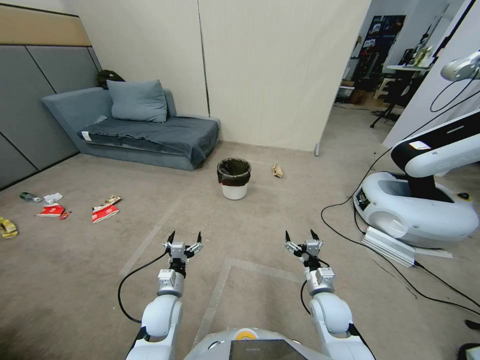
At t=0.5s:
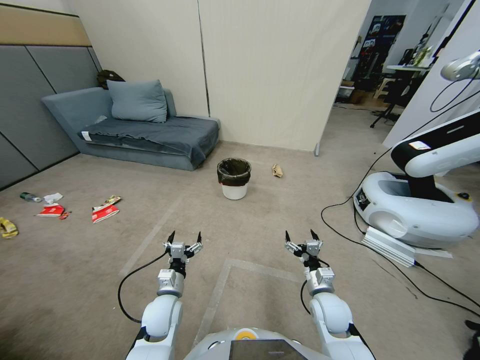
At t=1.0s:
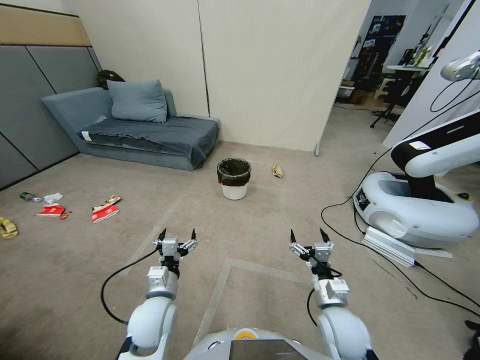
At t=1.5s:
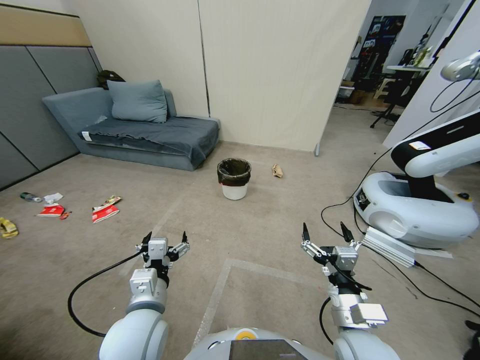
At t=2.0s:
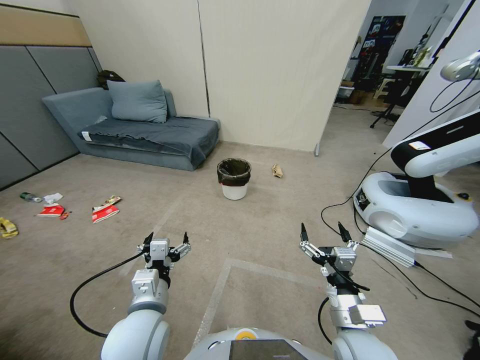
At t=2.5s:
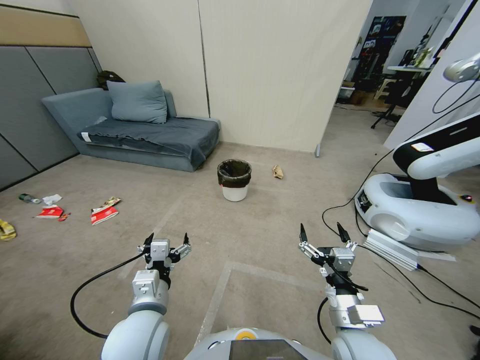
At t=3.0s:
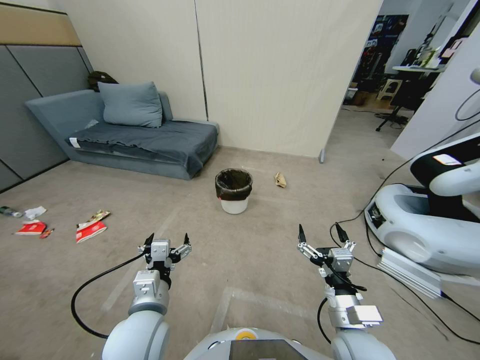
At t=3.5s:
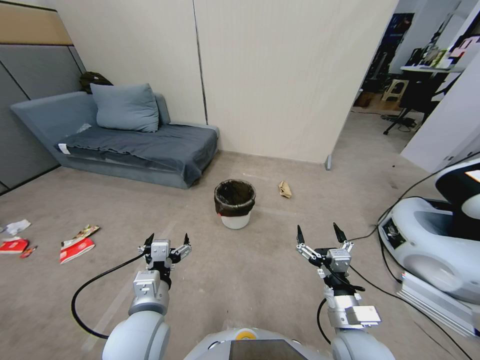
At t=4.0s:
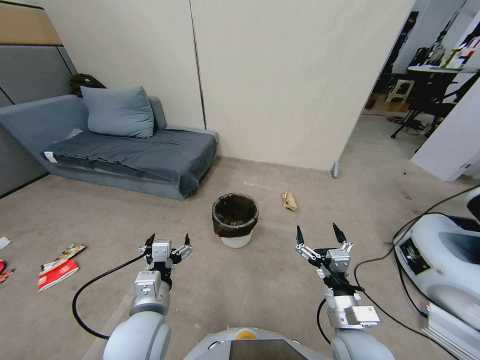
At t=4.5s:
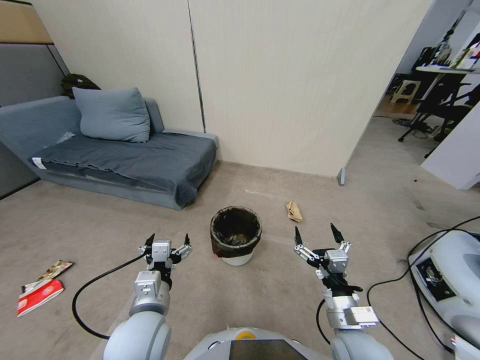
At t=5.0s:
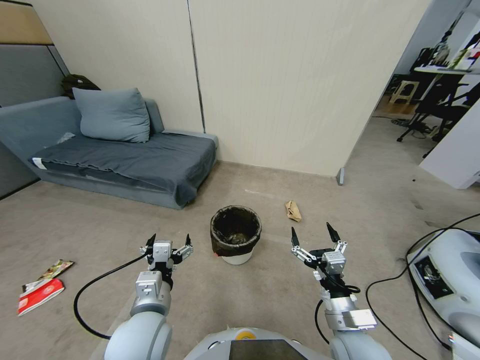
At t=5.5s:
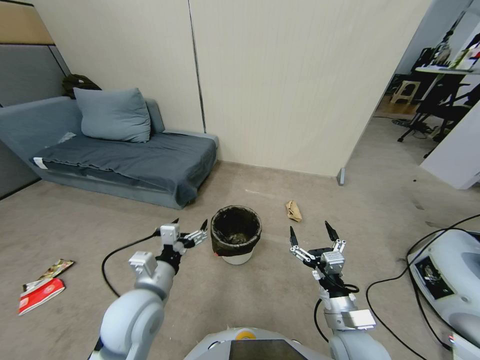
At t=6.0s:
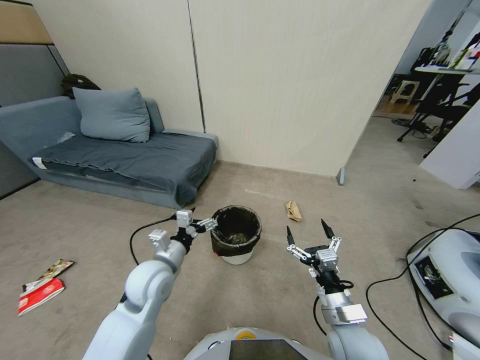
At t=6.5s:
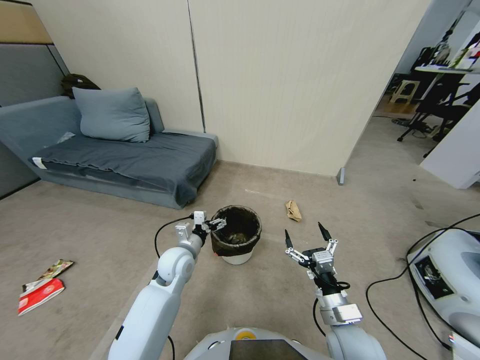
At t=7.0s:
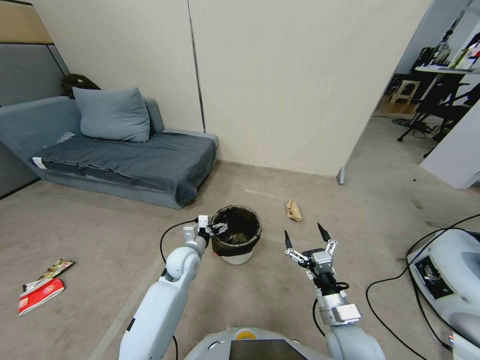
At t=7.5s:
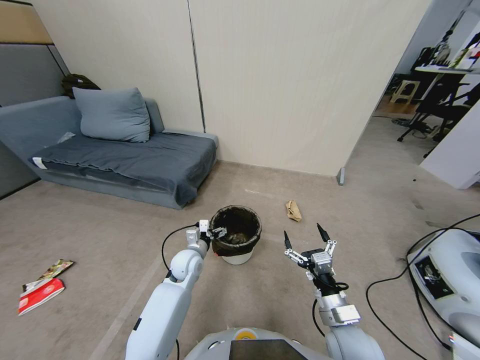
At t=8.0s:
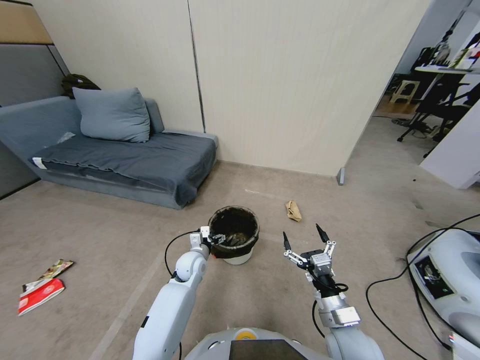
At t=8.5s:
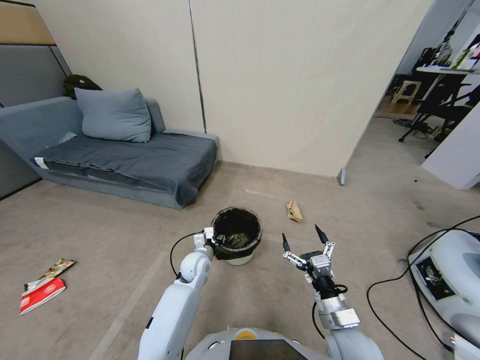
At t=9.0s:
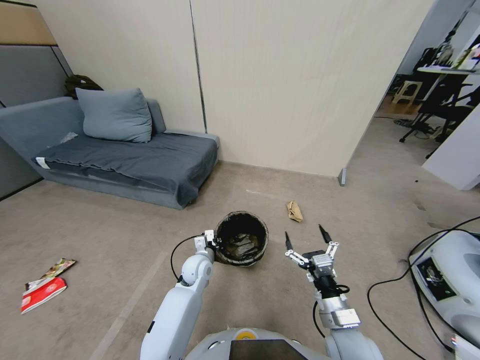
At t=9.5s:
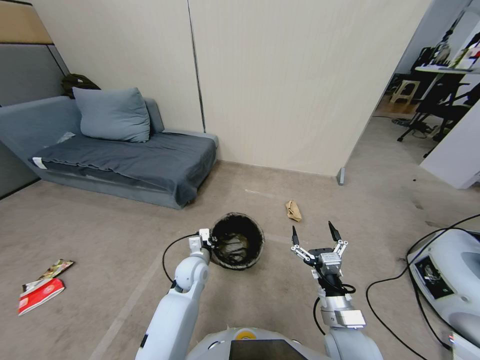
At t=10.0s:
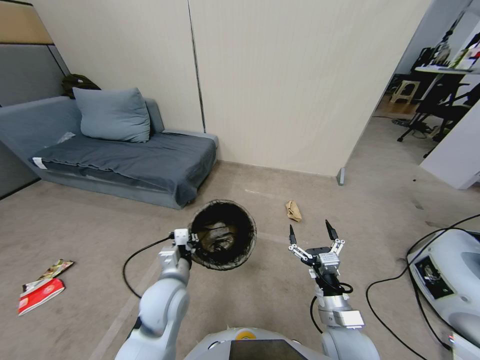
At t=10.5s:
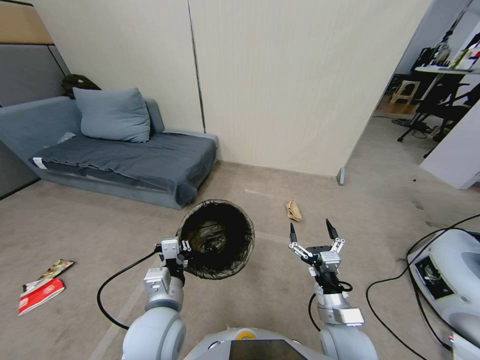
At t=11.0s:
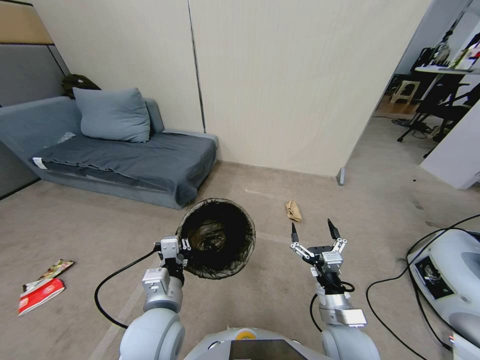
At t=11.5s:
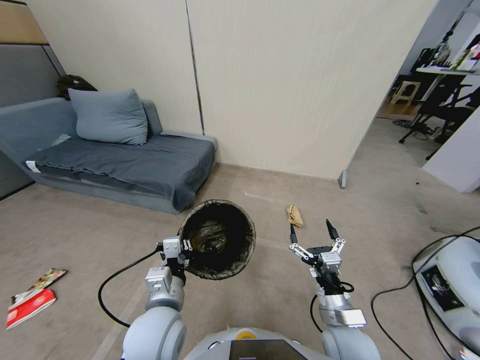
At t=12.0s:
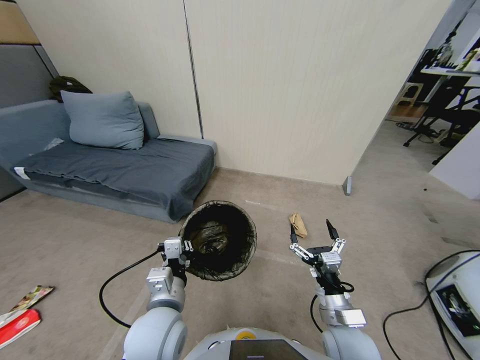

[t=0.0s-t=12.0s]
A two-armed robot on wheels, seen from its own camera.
Task of the whole recording: Pick up the trash bin, then pick up the garbage from the floor and place it into the trash bin.
t=4.0s to t=6.0s: The left gripper travels forward by some 15 cm.
t=6.0s to t=8.0s: The left gripper moves downward and forward, about 15 cm.
t=8.0s to t=10.0s: The left gripper shifts about 20 cm backward and upward, and closes its fingers.

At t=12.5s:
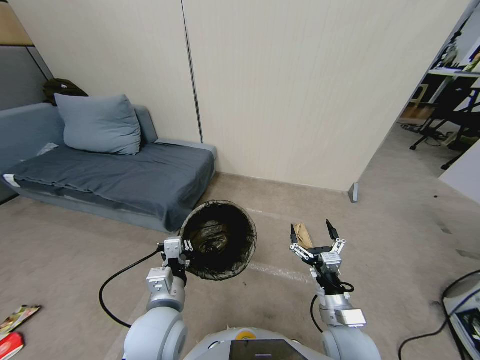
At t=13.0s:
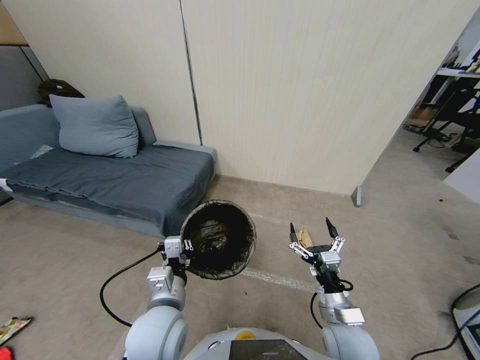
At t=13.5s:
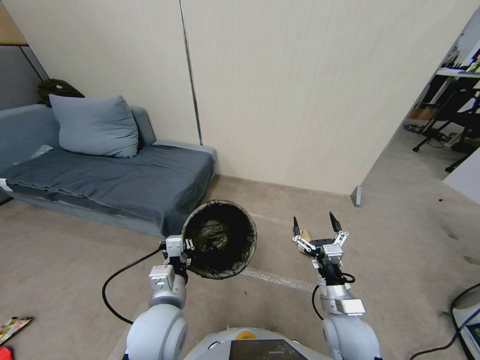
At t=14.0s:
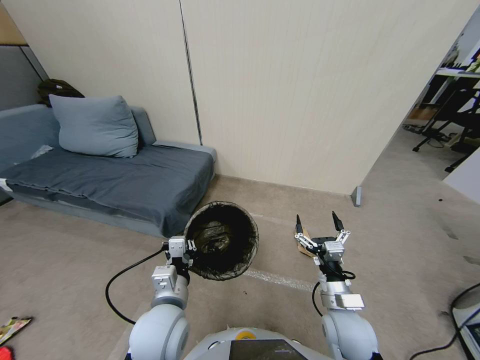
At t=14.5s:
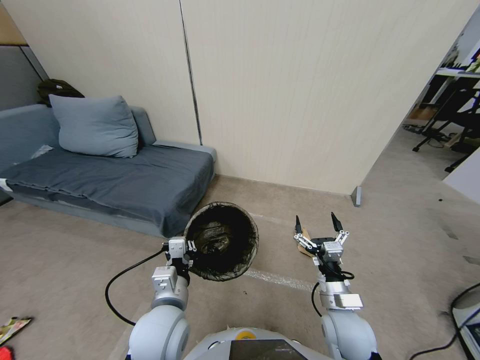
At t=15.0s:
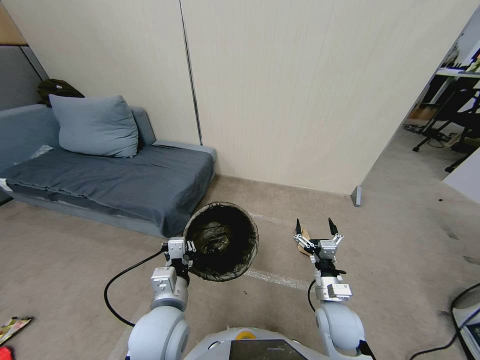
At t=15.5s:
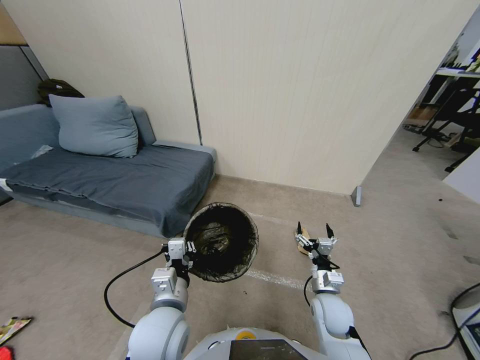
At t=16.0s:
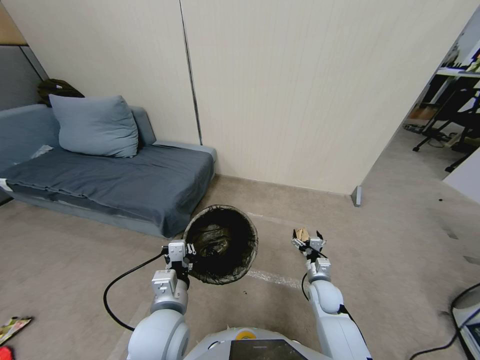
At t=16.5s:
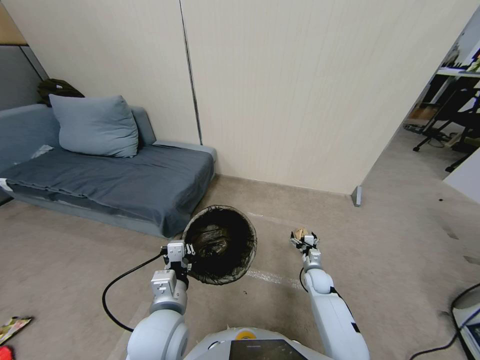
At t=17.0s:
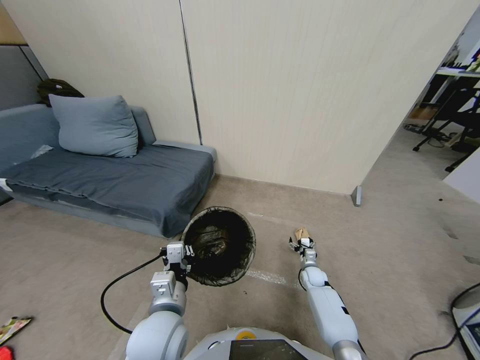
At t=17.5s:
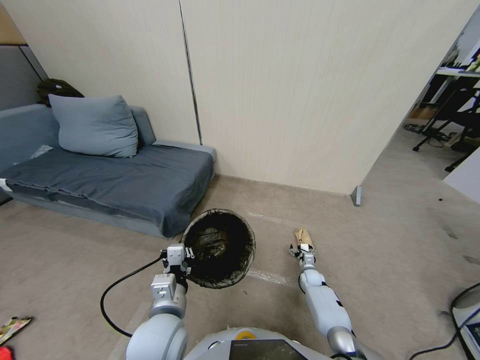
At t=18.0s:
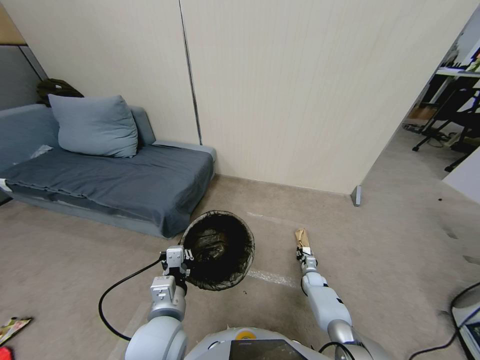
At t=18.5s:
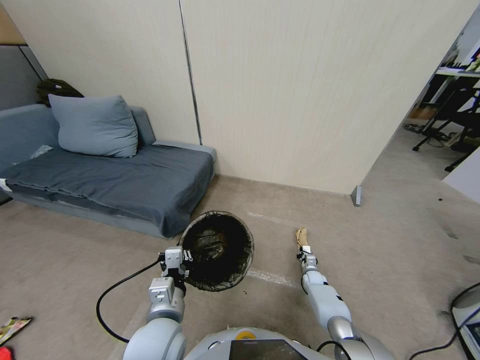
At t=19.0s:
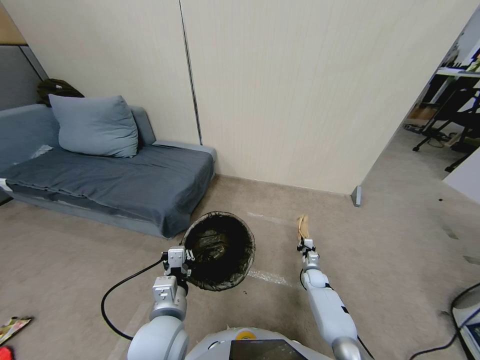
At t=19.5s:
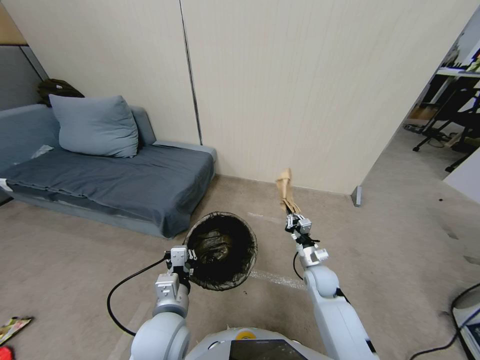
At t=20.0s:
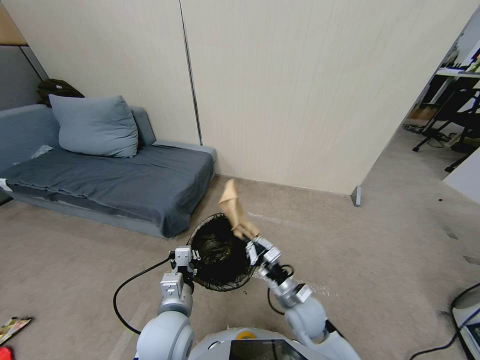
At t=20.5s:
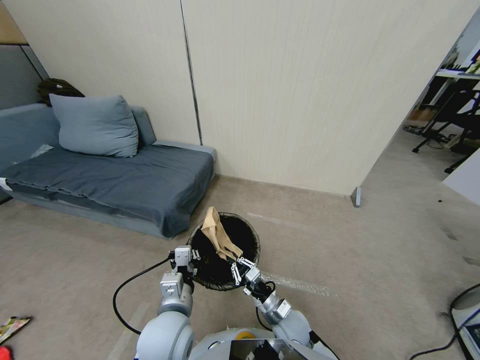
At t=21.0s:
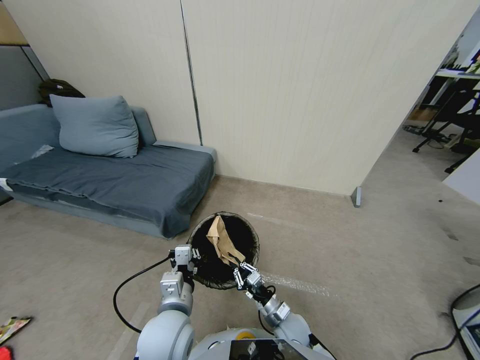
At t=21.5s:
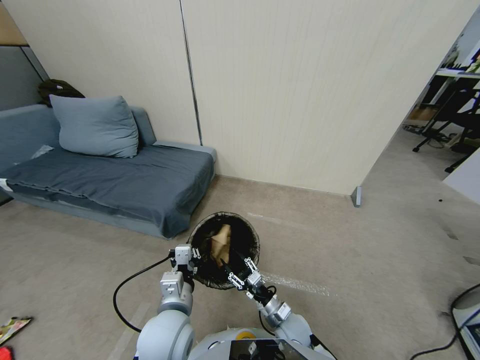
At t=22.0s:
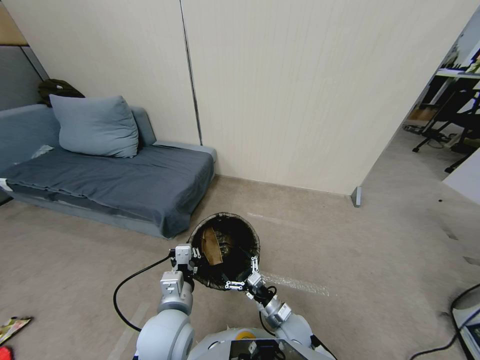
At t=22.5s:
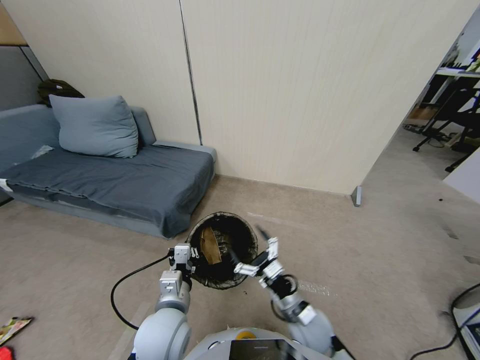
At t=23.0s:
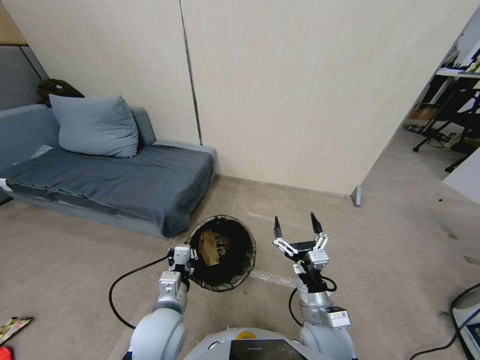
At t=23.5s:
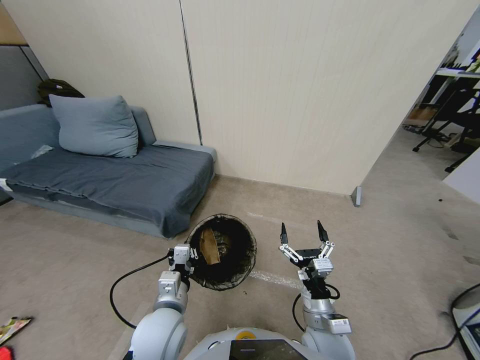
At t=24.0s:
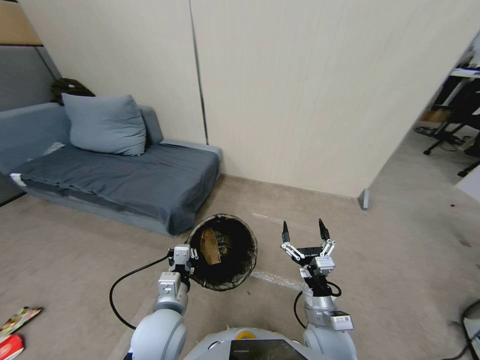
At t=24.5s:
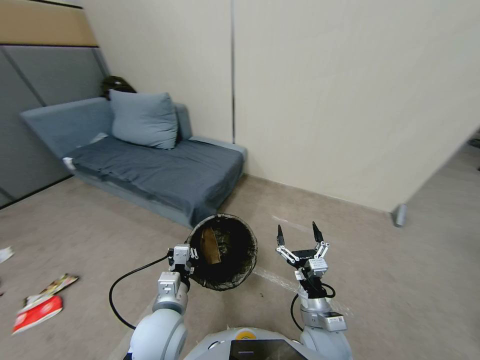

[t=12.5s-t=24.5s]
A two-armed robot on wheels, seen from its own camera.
Task of the whole recording: Pick up the trash bin, then pick up the garbage from the floor and place it into the trash bin.
t=12.5s to t=14.5s: The grippers move only a little.
t=14.5s to t=16.5s: The right gripper shifts about 25 cm downward and forward.
t=16.5s to t=18.5s: The right gripper is displaced downward by about 10 cm, and closes its fingers.
t=18.5s to t=20.5s: The right gripper travels to the left, backward and upward by about 35 cm.
t=20.5s to t=22.5s: The right gripper shifts some 10 cm upward, and opens its fingers.

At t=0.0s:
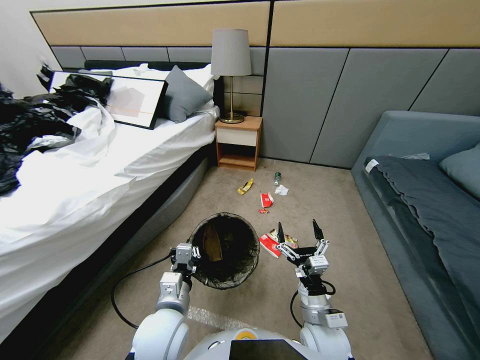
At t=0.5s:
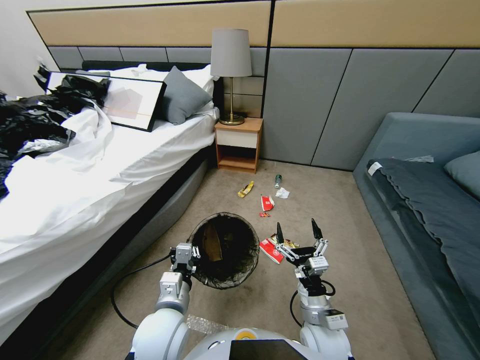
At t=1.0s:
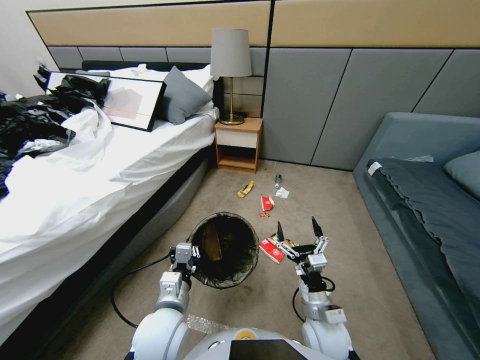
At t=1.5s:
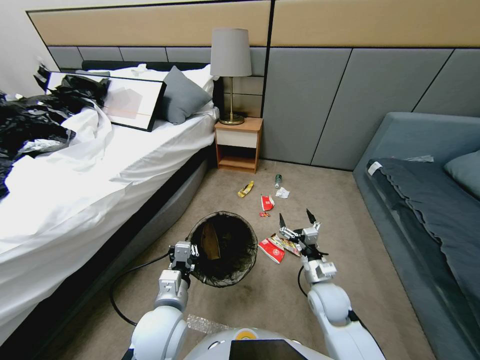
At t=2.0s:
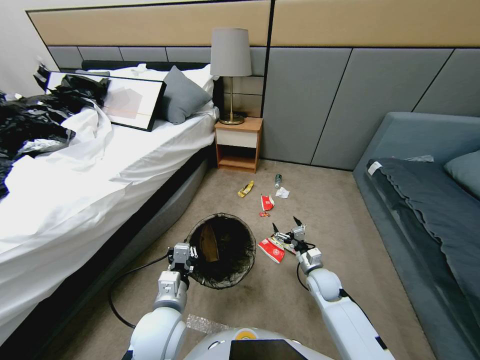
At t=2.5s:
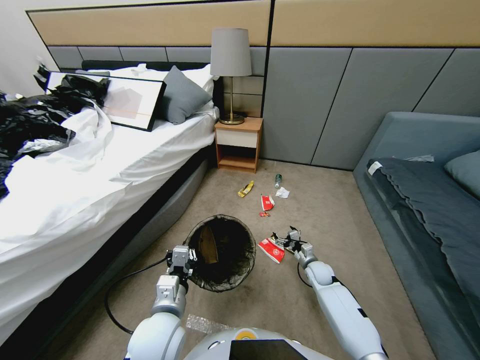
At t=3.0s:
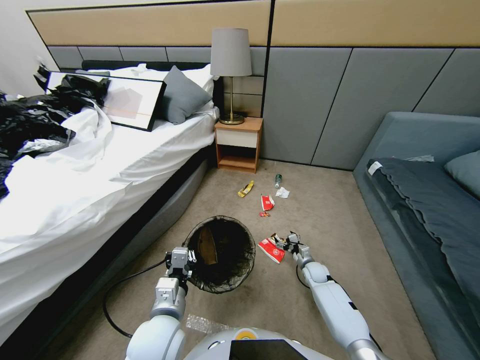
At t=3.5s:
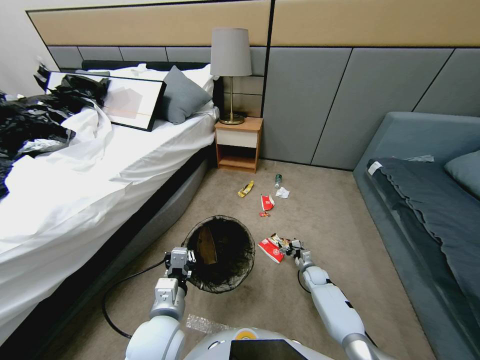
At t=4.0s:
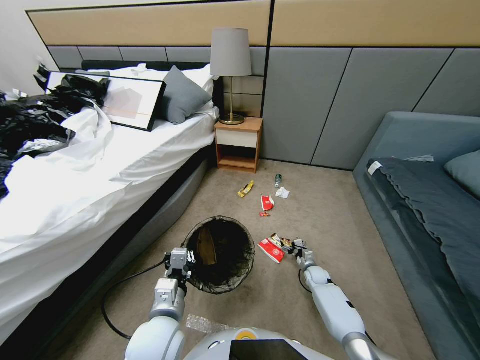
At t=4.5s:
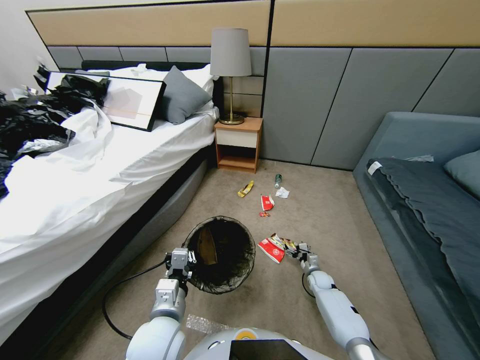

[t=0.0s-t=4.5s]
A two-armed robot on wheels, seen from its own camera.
Task of the whole recording: Pick up the trash bin, then pick up the garbage from the floor and place it into the trash bin.
t=0.0s to t=2.0s: The right gripper travels forward, to the right and downward by some 20 cm.
t=2.0s to t=4.5s: The right gripper heads downward and to the right, covering roughly 15 cm.
